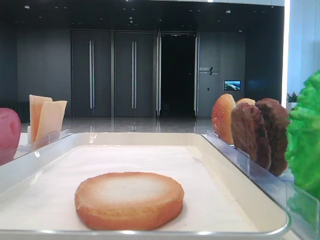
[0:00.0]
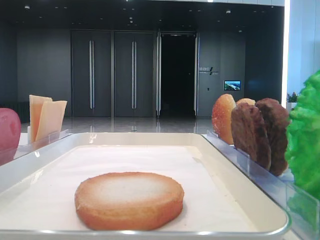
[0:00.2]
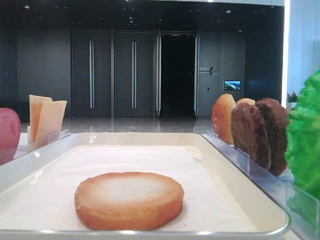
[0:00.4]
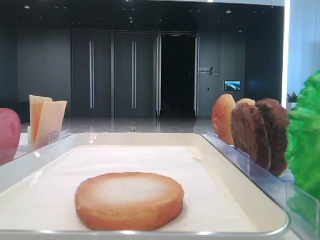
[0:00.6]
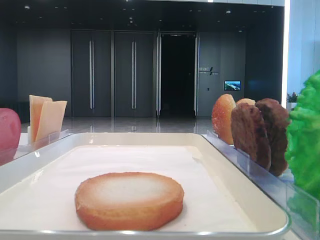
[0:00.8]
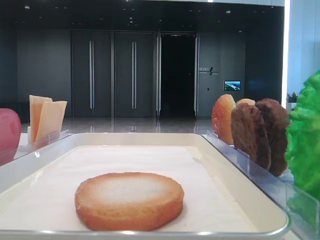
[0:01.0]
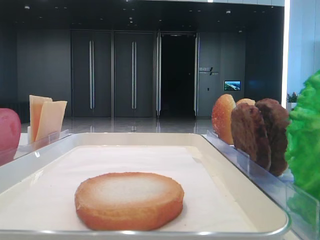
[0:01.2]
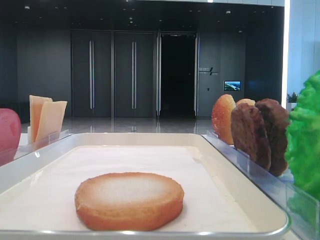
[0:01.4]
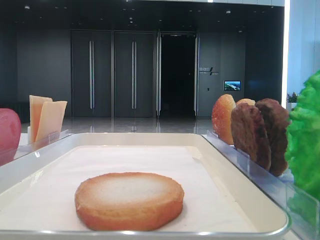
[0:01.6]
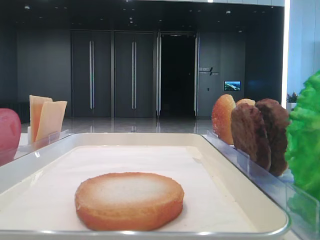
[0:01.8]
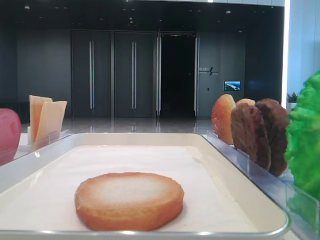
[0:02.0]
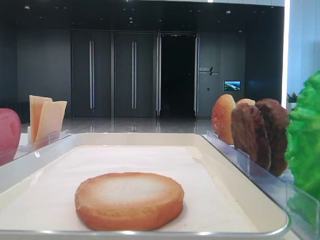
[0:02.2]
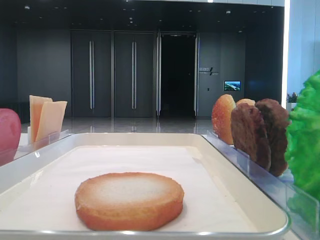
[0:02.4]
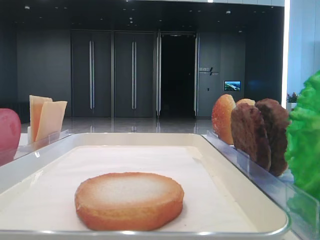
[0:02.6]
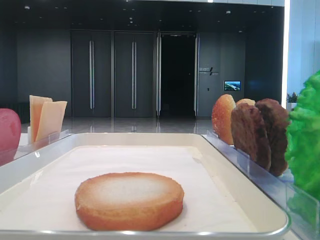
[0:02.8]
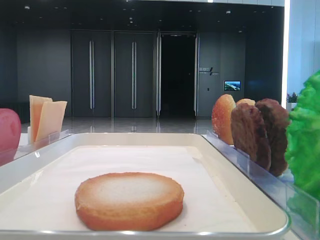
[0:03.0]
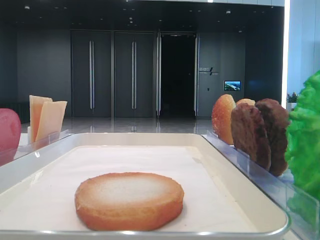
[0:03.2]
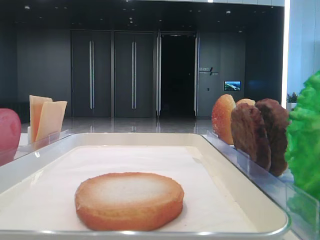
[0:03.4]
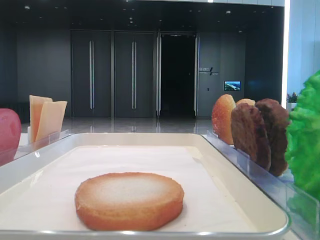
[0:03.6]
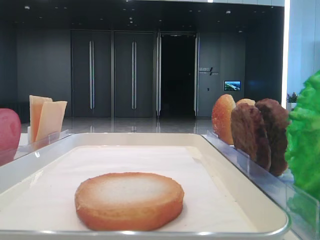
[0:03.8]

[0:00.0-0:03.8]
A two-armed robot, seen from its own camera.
0:02.6 to 0:03.8: Neither gripper changes place.

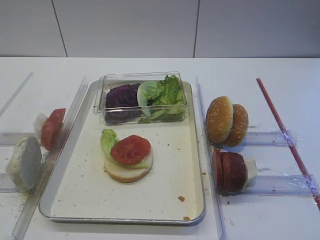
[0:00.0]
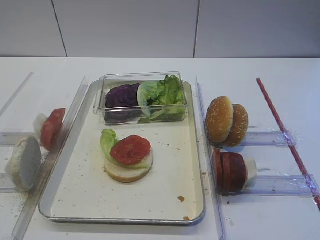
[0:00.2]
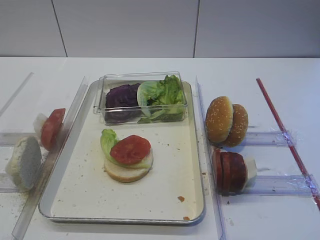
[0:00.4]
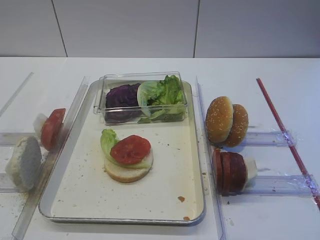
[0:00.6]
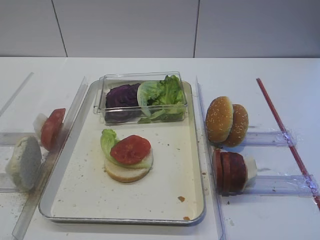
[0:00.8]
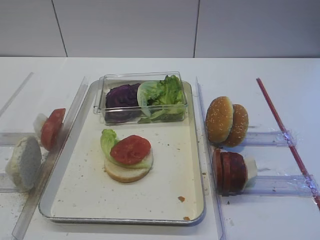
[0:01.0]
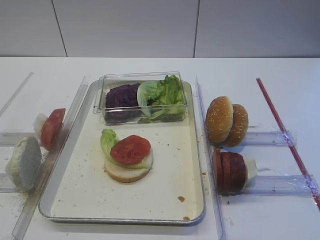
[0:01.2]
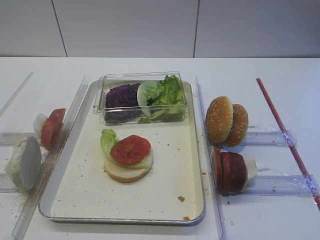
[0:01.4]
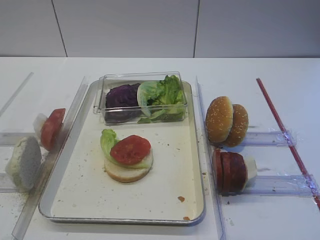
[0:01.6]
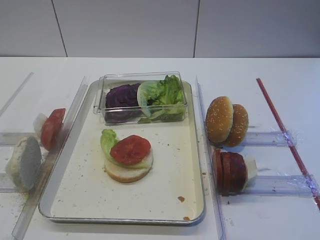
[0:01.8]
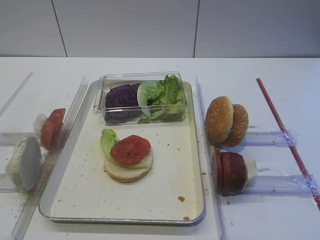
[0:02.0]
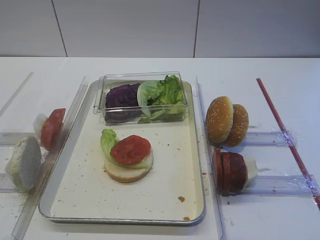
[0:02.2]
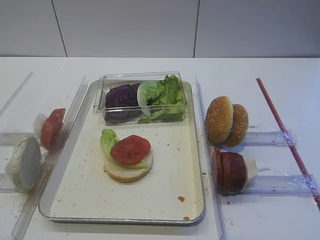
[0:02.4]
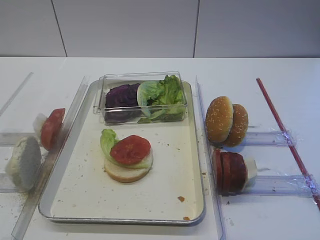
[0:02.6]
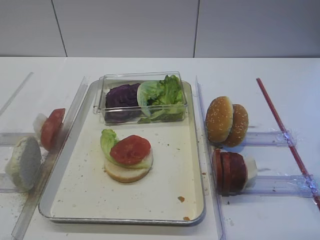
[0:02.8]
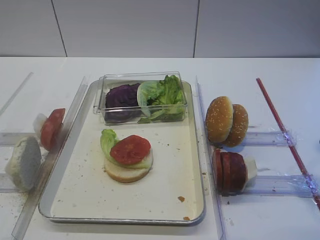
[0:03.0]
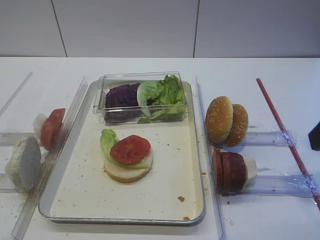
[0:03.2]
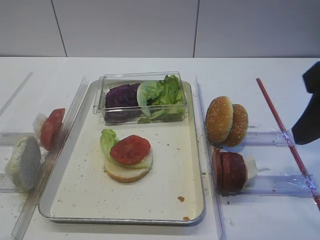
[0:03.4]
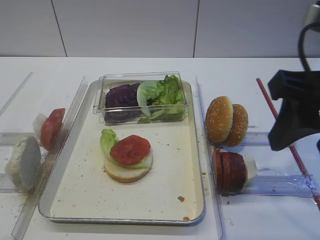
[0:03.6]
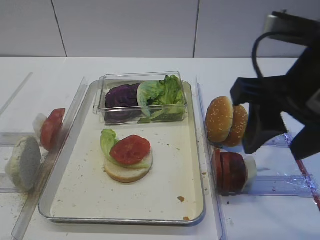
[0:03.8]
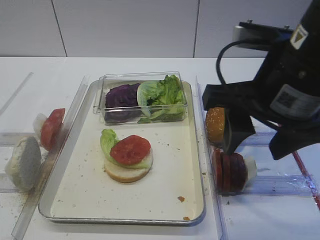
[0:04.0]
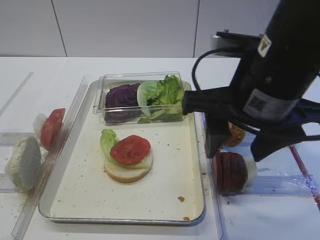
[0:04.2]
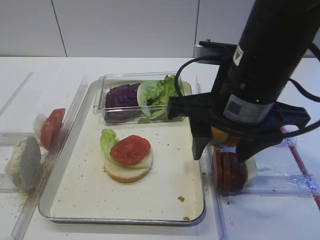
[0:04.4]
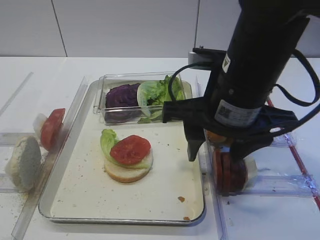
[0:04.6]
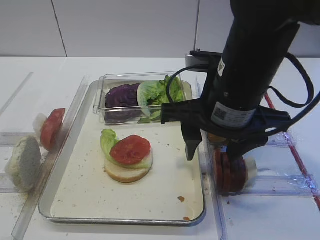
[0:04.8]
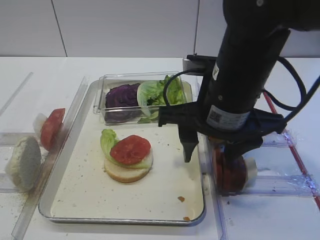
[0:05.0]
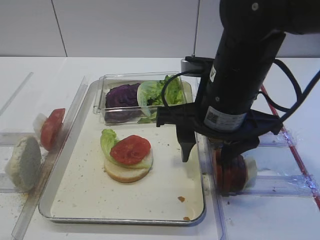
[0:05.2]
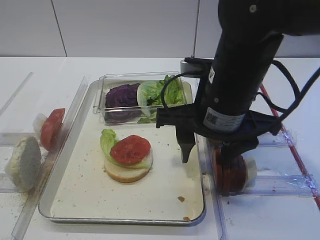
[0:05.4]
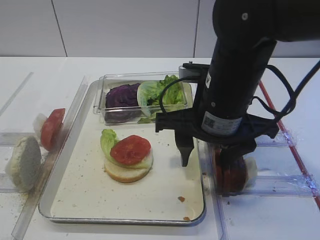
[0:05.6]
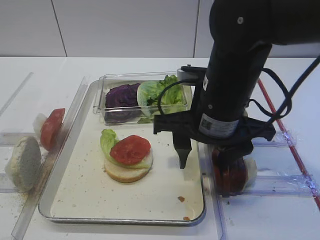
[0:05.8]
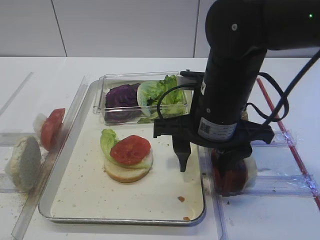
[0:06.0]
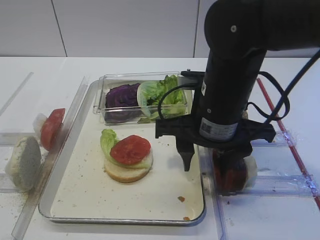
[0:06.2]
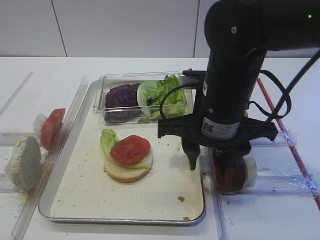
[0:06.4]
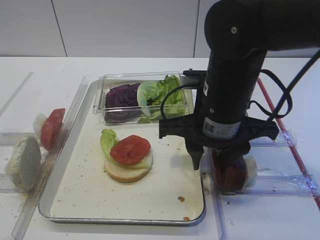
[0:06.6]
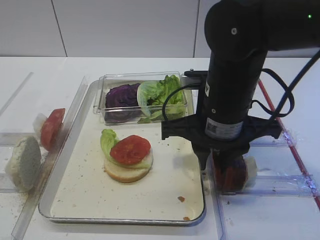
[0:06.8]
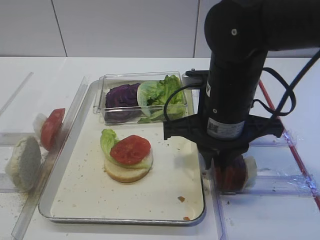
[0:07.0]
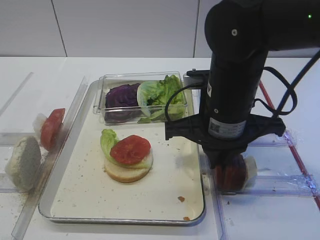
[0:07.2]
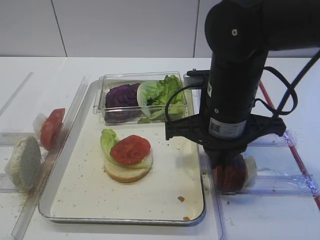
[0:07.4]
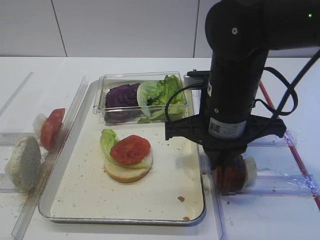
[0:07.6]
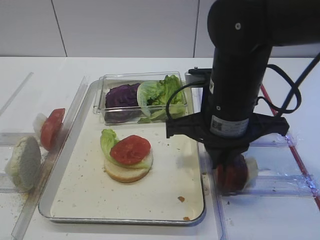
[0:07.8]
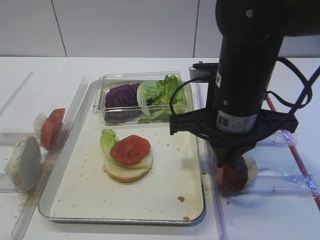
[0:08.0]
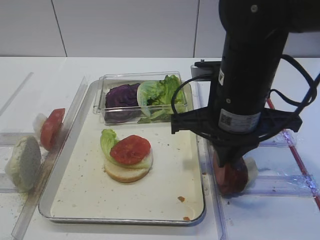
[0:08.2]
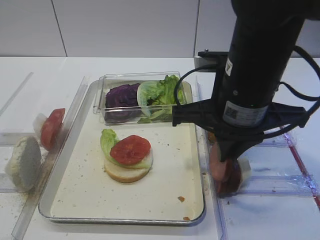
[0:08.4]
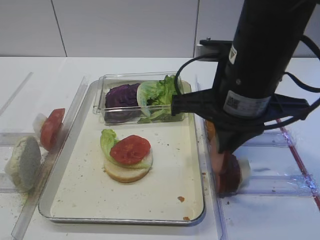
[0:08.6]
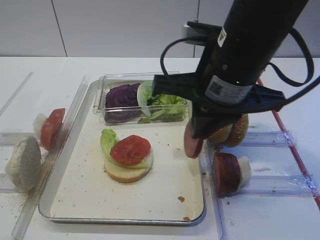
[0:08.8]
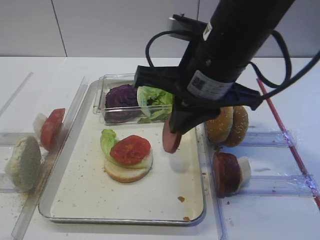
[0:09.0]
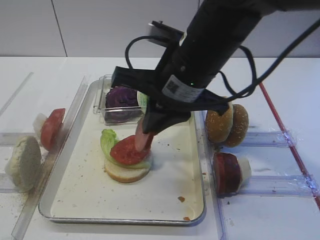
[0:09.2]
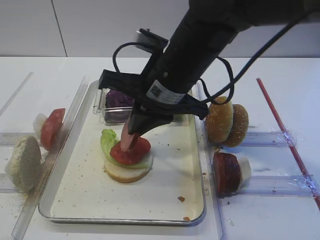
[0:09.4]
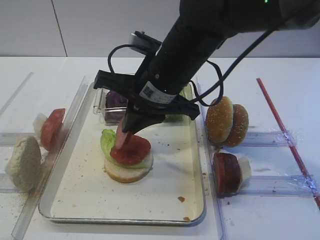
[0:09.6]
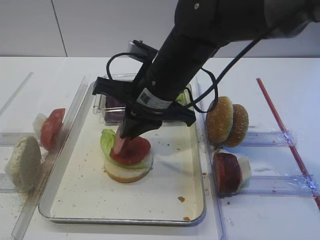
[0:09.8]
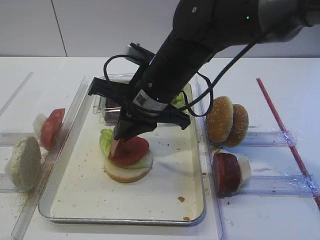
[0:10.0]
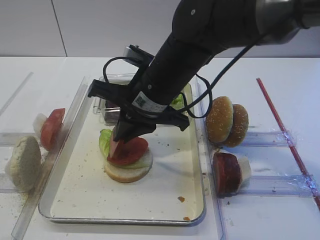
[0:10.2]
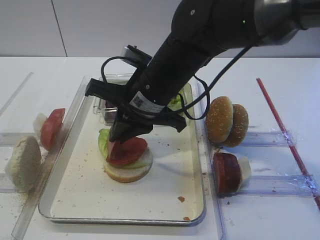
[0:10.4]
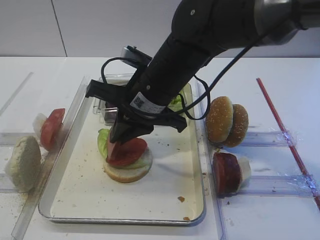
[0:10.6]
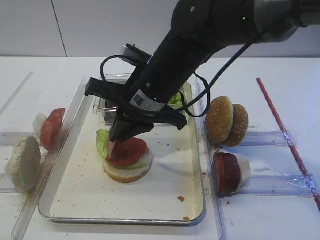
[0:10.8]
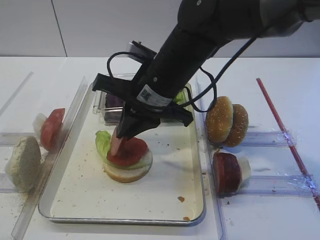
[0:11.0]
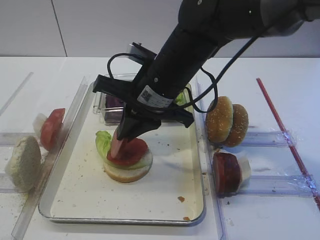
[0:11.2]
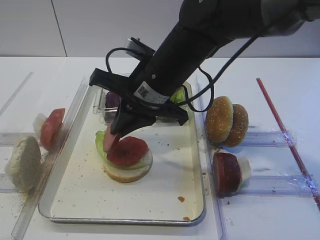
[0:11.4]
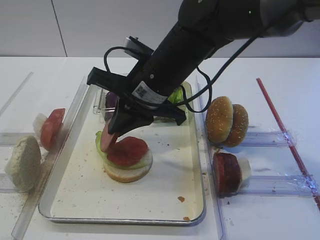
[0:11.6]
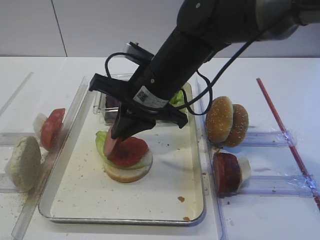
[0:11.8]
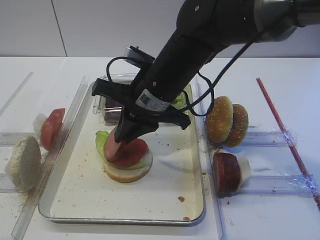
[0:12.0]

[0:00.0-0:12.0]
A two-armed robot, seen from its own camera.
Step, 0:00.0 to 0:08.6: Pick up the cutlet with the right gripper.
0:03.0 to 0:04.4: The right gripper heads to the left and forward, covering some 15 cm.
0:04.4 to 0:06.0: The right gripper travels downward by approximately 5 cm.
0:06.0 to 0:07.6: The right gripper closes.
0:07.6 to 0:09.0: The right gripper goes approximately 5 cm upward.
0:09.0 to 0:10.4: The right gripper heads to the left and downward, covering approximately 10 cm.
0:10.4 to 0:12.0: There are only small adjustments of the grippers.

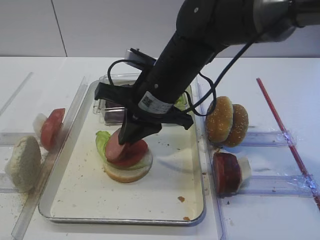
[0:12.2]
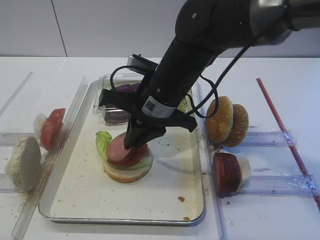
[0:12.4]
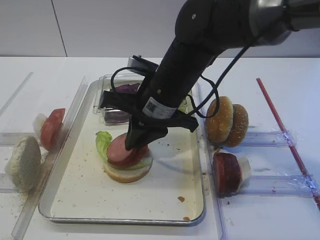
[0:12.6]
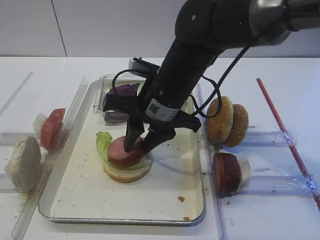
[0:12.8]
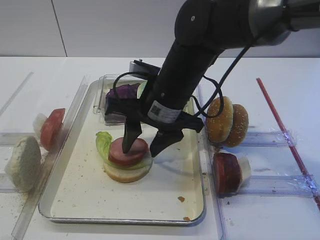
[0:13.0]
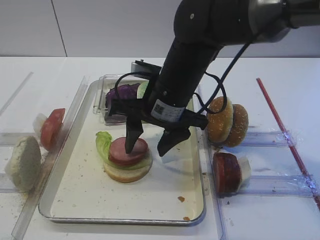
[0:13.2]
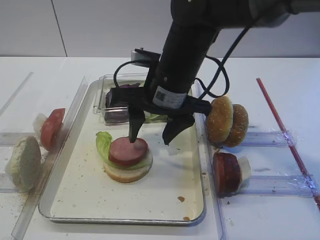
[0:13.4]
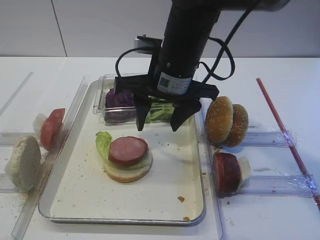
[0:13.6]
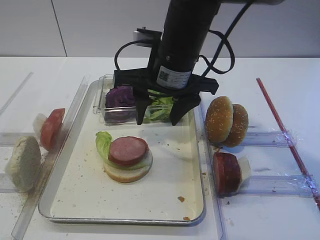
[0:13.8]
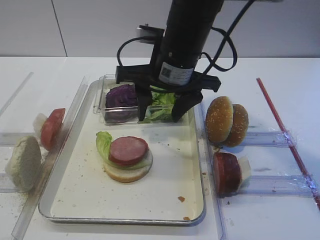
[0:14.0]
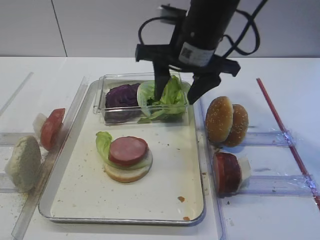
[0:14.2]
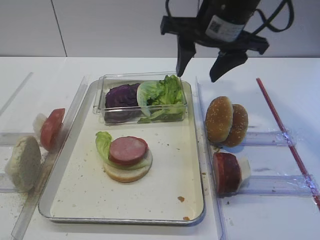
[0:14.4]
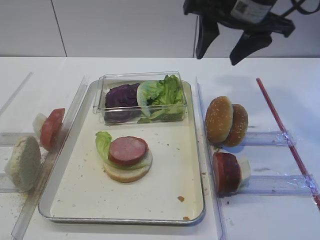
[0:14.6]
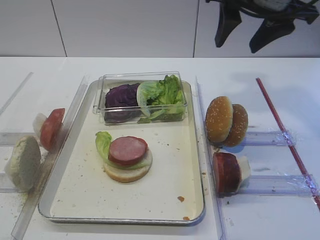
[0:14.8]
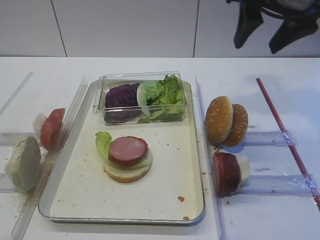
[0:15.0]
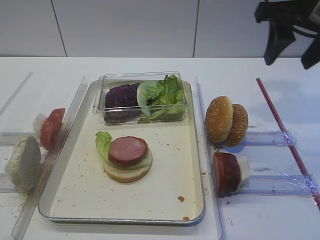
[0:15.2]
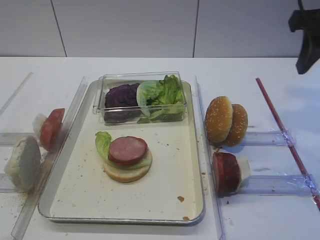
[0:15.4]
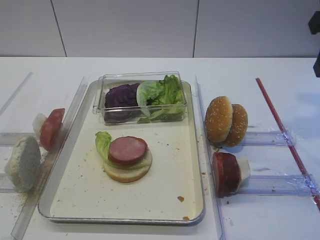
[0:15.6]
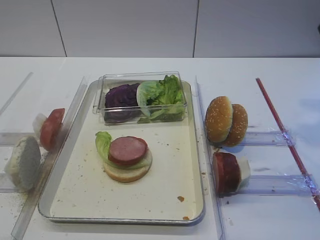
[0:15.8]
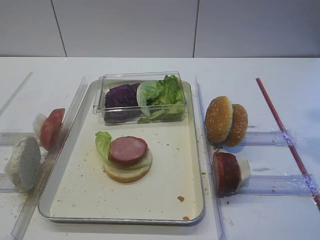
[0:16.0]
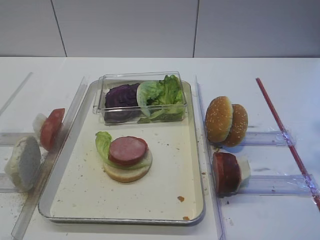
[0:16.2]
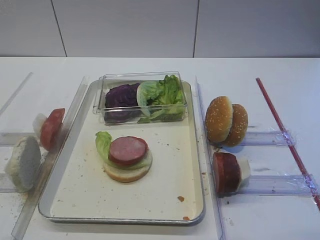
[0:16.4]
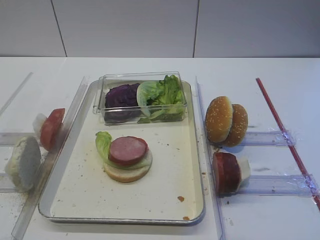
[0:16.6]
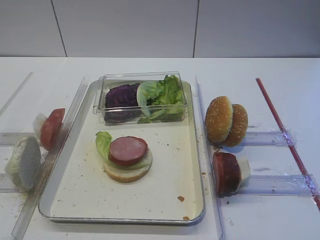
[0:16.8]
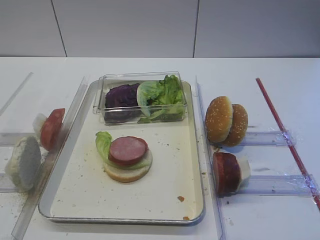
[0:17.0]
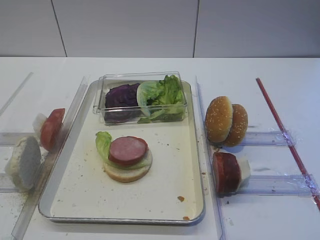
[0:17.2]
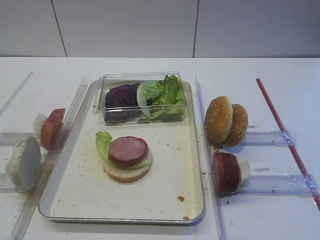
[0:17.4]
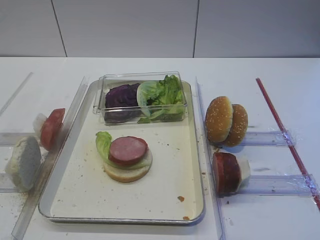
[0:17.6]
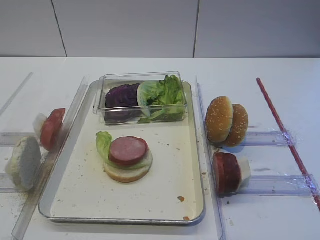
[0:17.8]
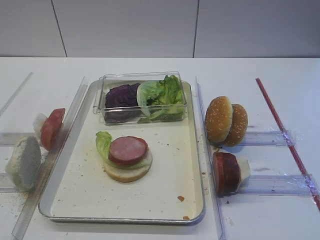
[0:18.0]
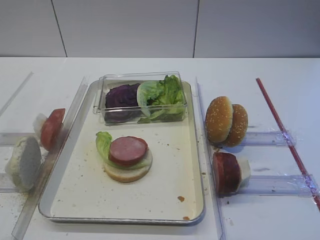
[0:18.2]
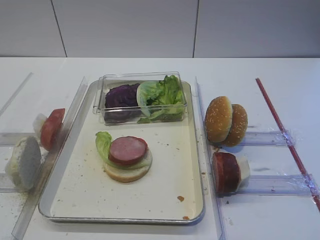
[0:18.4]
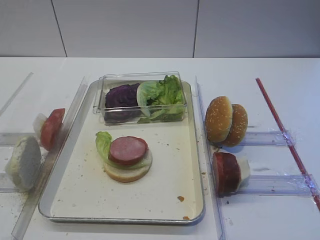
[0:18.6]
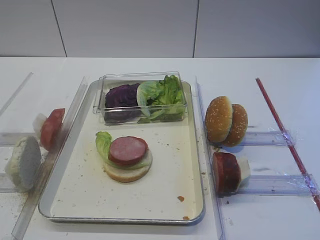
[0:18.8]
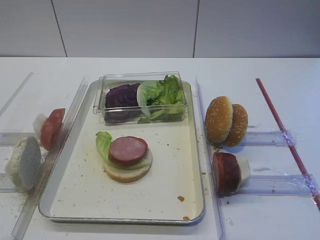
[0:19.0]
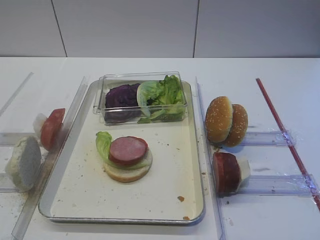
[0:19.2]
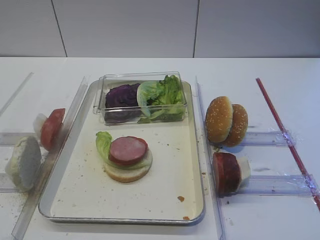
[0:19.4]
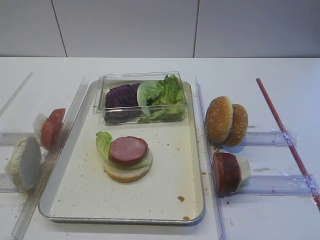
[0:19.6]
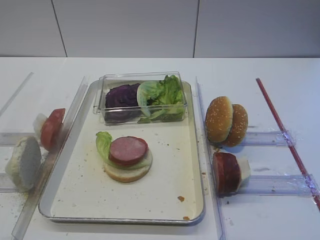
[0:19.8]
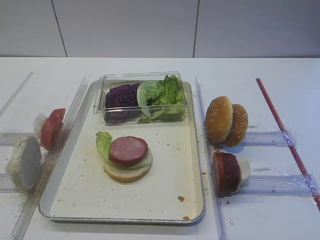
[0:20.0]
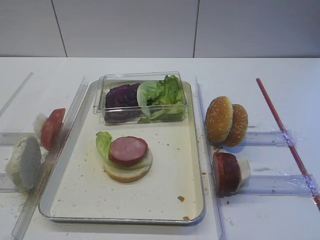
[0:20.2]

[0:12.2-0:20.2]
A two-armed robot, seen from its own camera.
0:12.2 to 0:13.8: The right gripper opens up.
0:13.8 to 0:15.4: The right gripper goes about 20 cm to the right.
0:15.4 to 0:17.0: The right gripper goes some 25 cm backward.
0:18.6 to 0:20.2: Neither gripper changes place.
